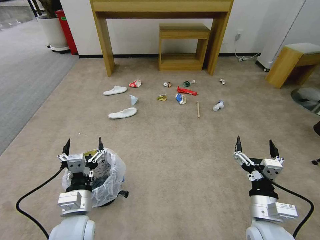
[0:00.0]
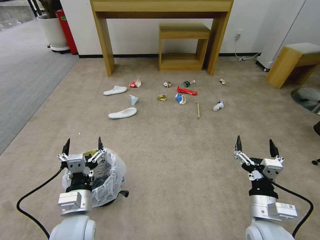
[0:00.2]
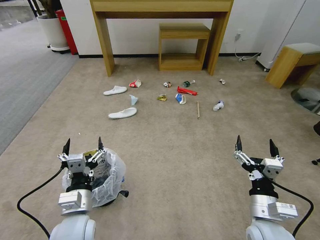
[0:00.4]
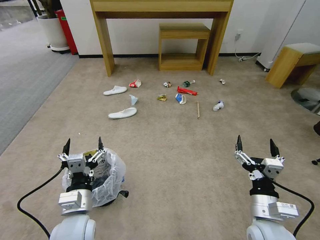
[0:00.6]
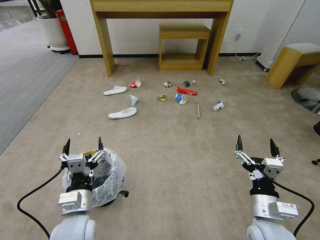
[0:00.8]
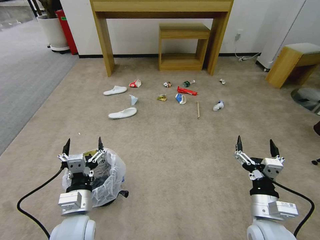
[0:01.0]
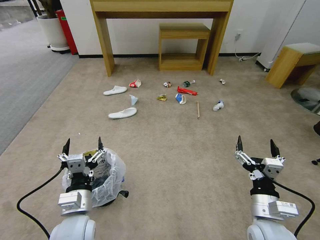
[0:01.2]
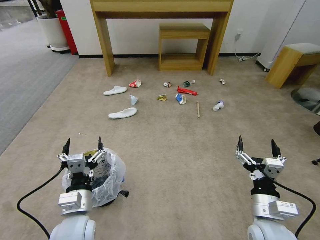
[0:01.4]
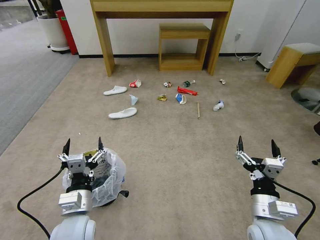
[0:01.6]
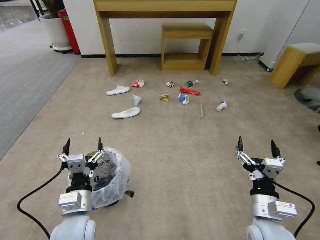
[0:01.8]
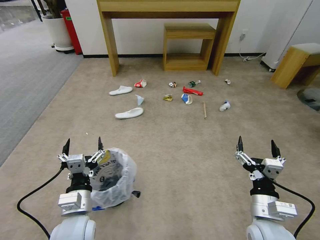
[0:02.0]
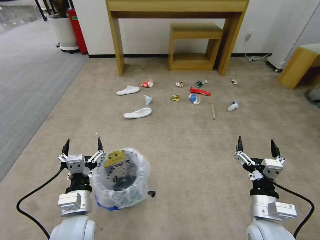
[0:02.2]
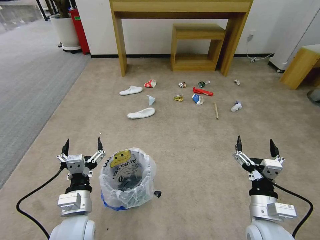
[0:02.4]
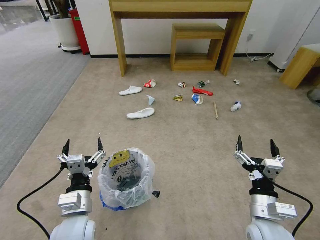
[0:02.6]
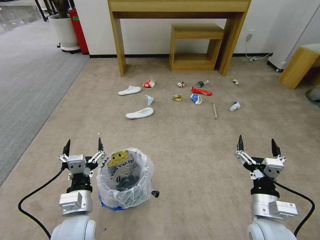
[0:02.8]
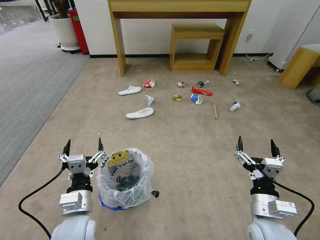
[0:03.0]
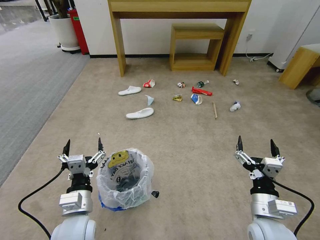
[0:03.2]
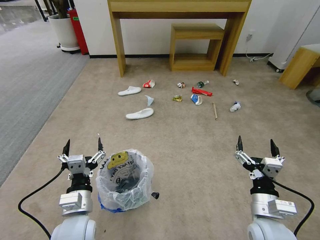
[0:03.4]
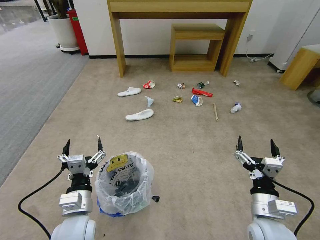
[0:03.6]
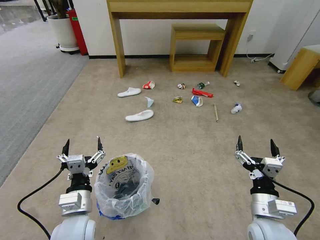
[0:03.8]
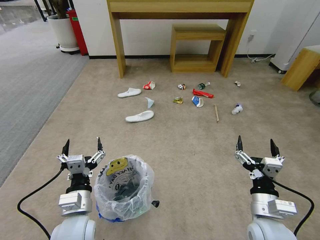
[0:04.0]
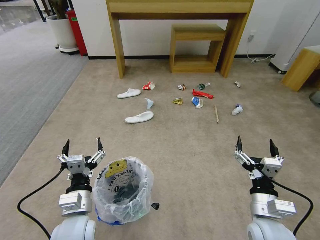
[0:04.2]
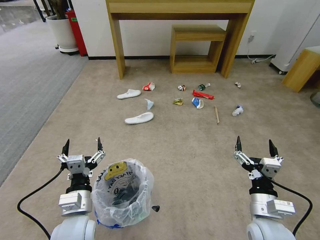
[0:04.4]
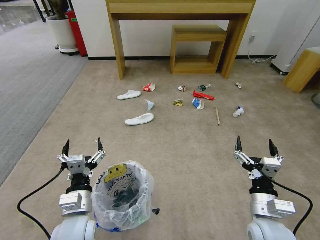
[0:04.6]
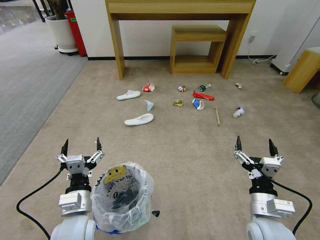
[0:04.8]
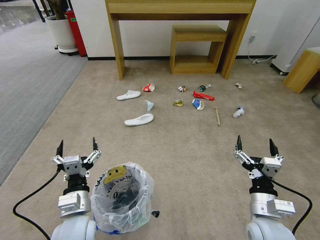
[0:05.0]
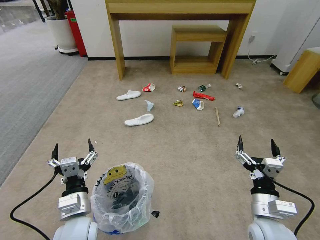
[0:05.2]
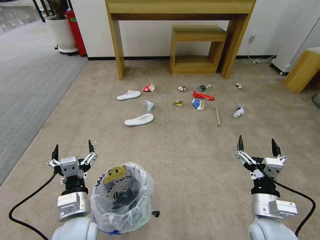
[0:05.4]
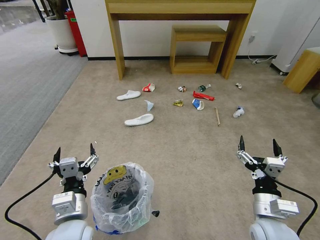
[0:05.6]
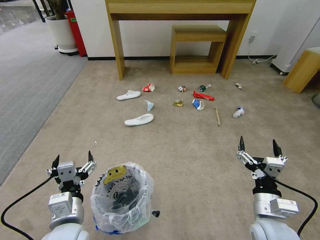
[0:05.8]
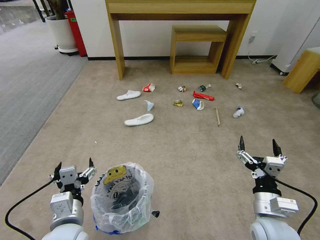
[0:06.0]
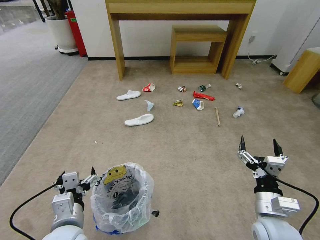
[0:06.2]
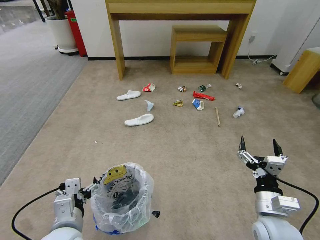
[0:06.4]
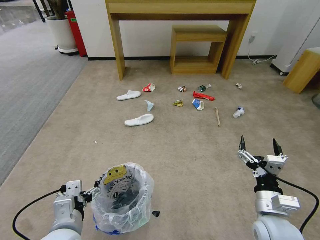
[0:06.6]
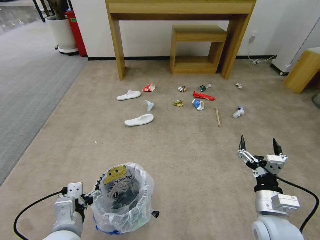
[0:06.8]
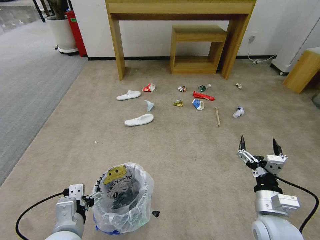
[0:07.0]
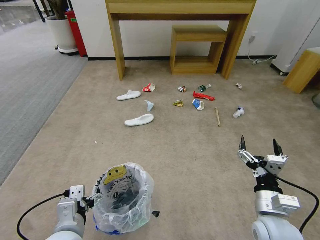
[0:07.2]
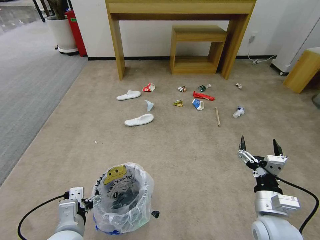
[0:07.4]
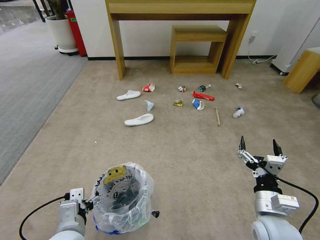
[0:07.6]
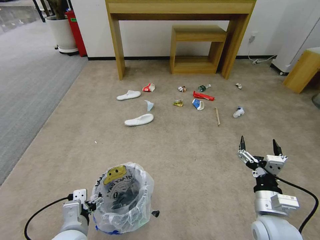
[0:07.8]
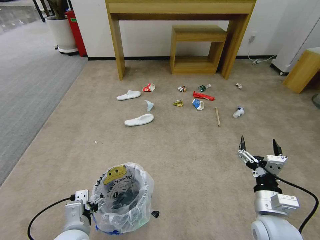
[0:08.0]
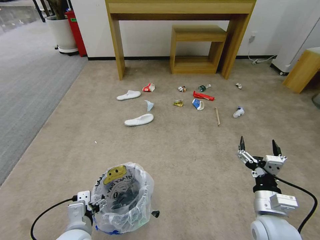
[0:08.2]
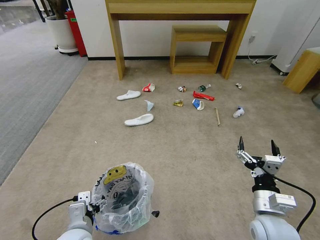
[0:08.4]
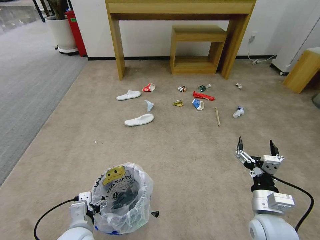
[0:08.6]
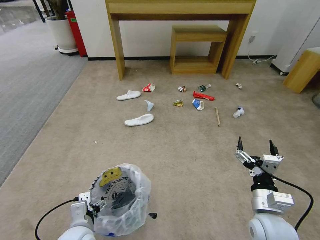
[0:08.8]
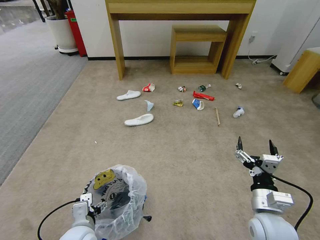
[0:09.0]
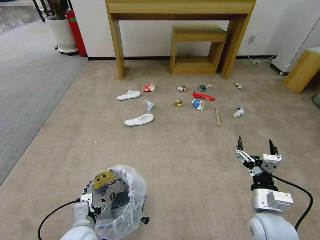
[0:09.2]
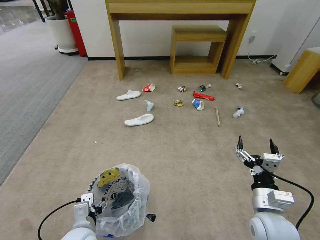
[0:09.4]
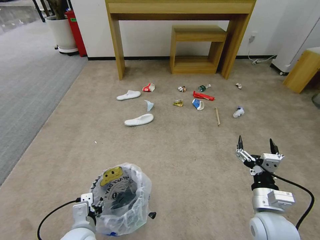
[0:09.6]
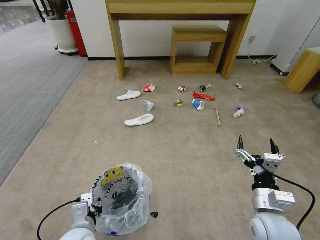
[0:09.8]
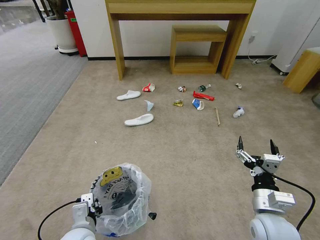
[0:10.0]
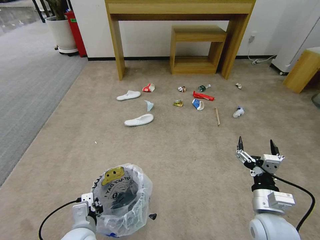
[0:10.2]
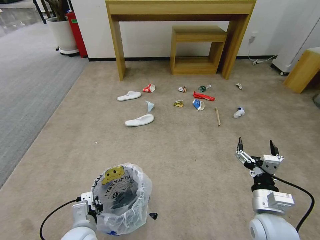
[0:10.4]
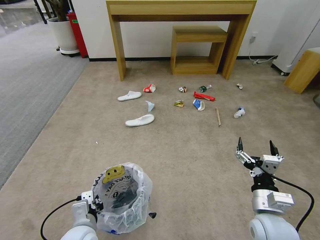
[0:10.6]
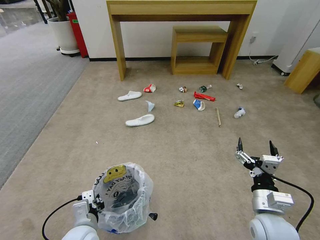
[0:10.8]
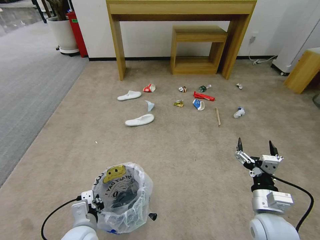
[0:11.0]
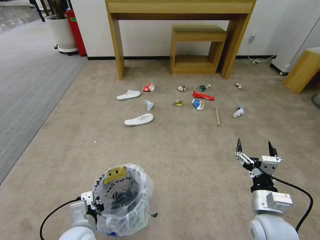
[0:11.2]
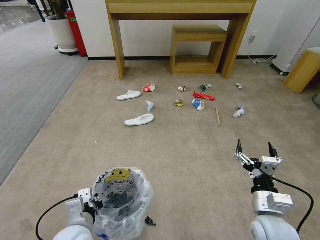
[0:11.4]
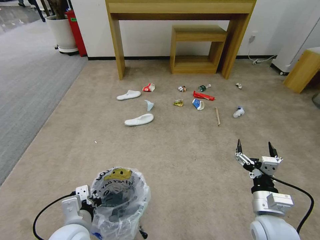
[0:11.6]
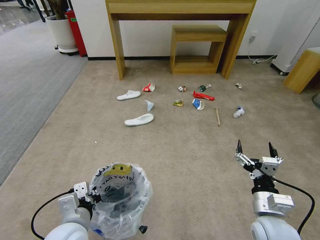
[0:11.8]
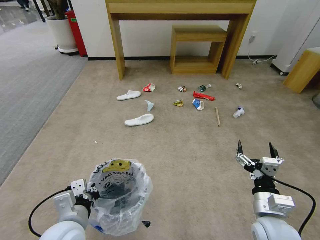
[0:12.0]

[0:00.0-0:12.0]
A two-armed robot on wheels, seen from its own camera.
Task of the whole recording: Pick up the trash bin and place the garbage on the floor into it.
0:01.6 to 0:04.4: Both grippers stay about where they are.
0:07.6 to 0:09.0: The left gripper goes about 5 cm downward.
0:09.0 to 0:10.4: The left gripper closes.
0:10.4 to 0:12.0: The left gripper moves upward, about 10 cm.

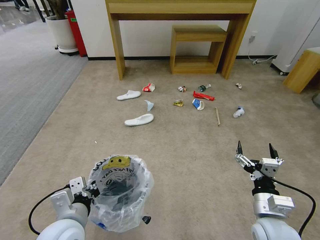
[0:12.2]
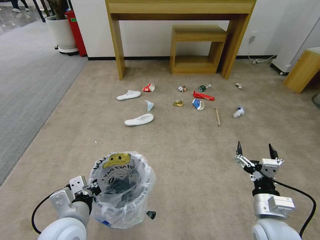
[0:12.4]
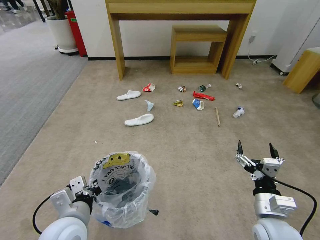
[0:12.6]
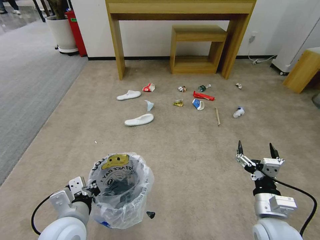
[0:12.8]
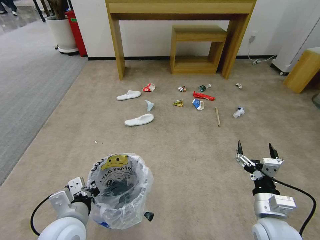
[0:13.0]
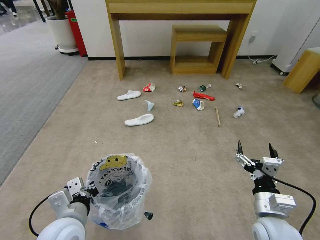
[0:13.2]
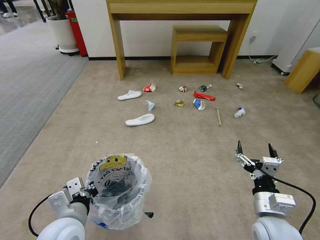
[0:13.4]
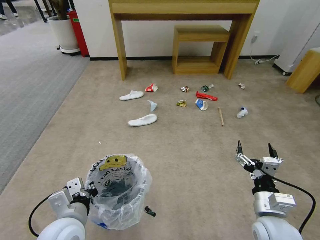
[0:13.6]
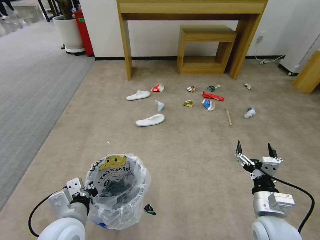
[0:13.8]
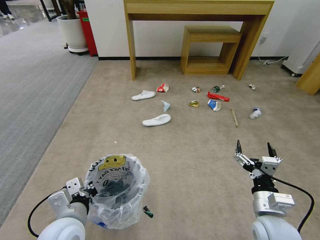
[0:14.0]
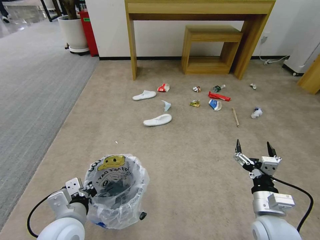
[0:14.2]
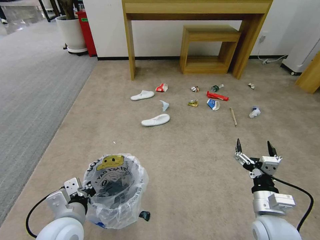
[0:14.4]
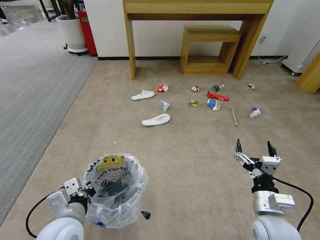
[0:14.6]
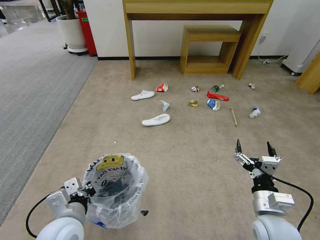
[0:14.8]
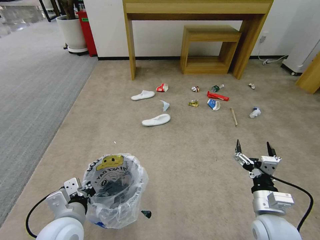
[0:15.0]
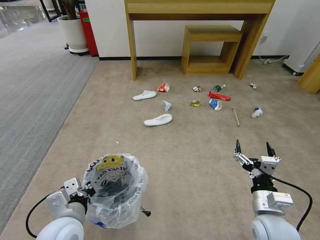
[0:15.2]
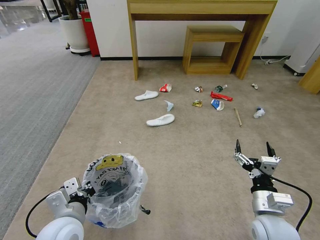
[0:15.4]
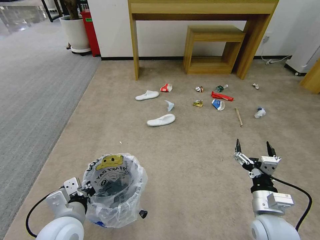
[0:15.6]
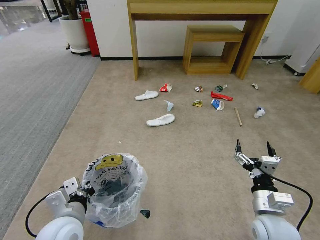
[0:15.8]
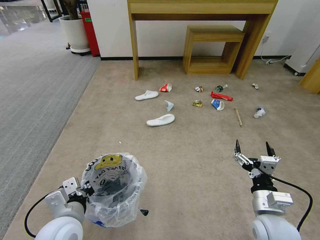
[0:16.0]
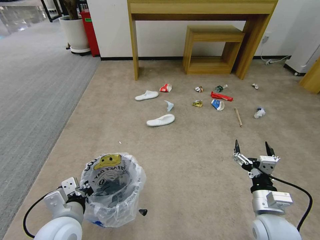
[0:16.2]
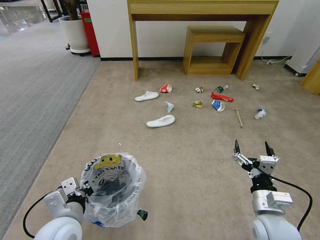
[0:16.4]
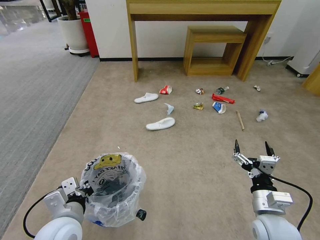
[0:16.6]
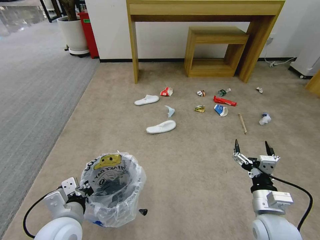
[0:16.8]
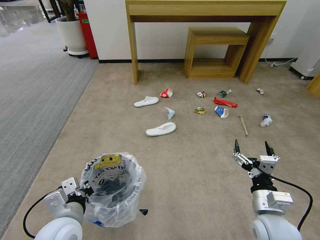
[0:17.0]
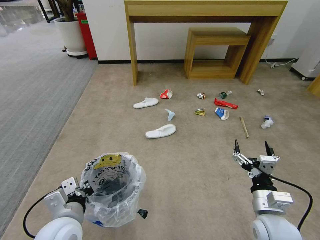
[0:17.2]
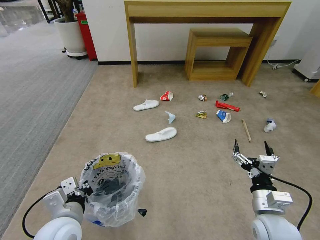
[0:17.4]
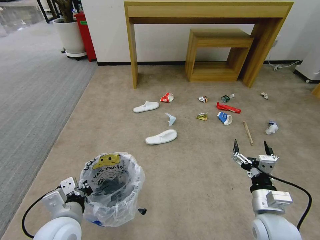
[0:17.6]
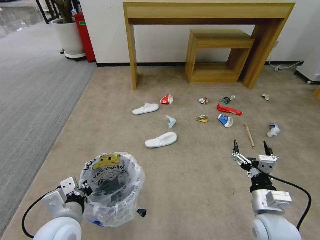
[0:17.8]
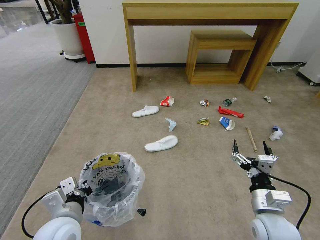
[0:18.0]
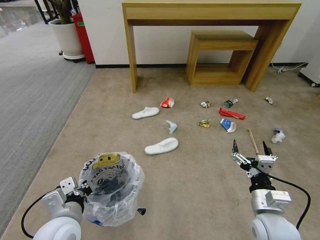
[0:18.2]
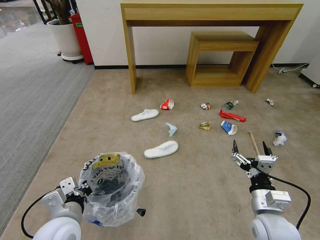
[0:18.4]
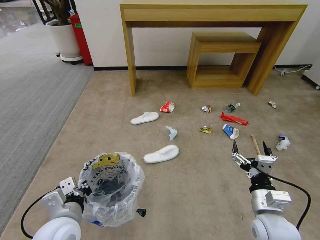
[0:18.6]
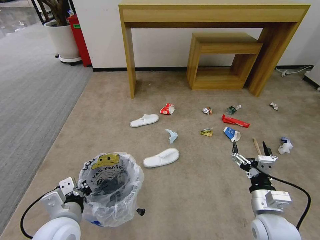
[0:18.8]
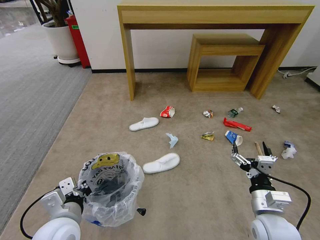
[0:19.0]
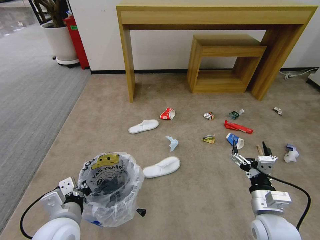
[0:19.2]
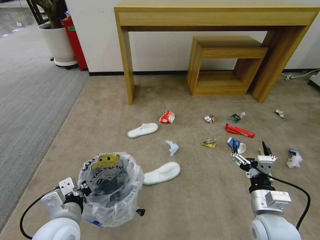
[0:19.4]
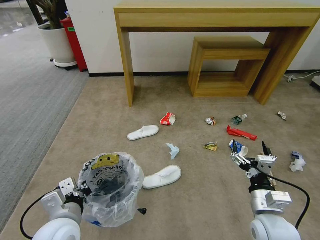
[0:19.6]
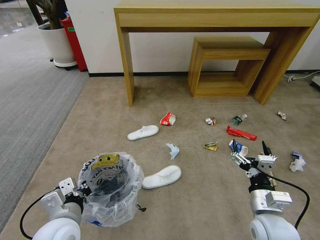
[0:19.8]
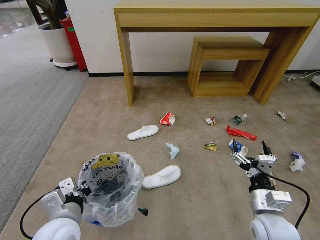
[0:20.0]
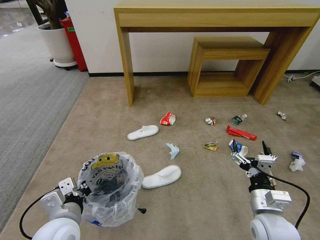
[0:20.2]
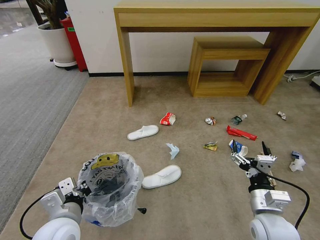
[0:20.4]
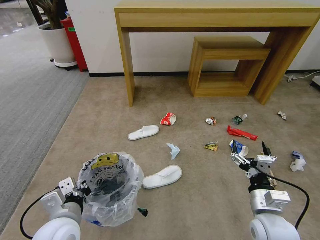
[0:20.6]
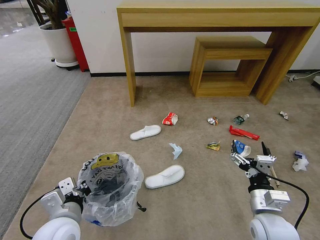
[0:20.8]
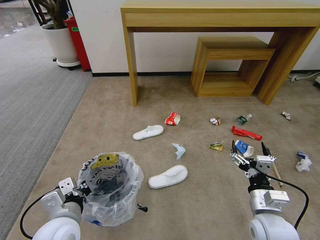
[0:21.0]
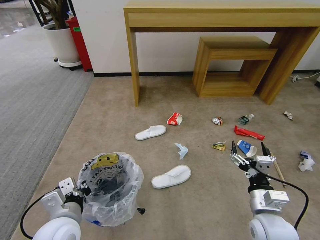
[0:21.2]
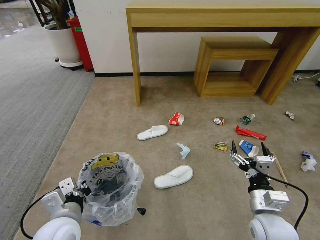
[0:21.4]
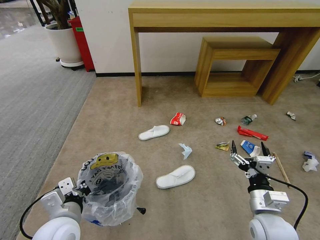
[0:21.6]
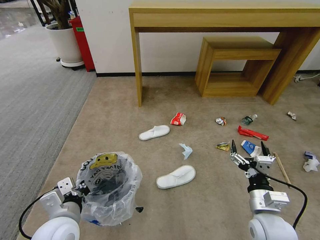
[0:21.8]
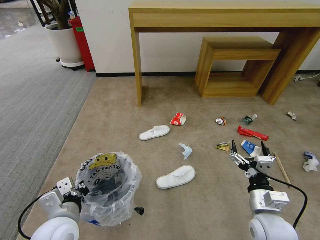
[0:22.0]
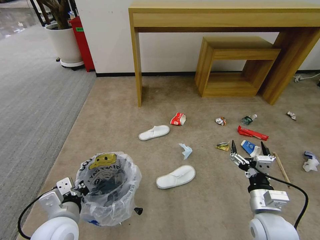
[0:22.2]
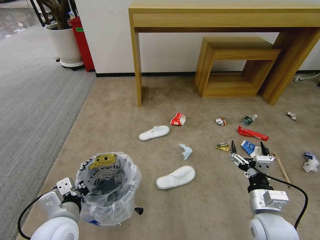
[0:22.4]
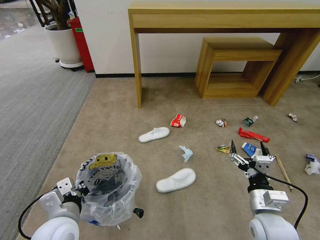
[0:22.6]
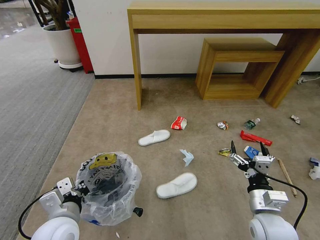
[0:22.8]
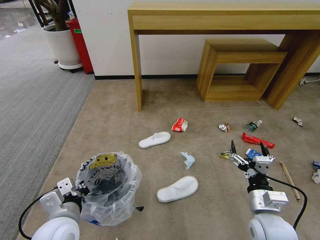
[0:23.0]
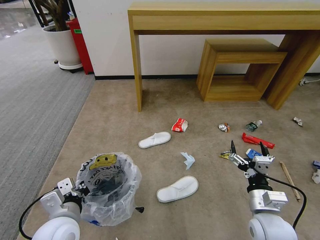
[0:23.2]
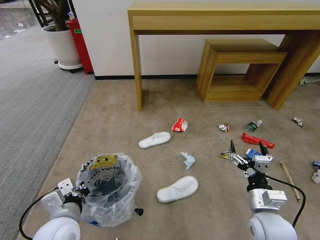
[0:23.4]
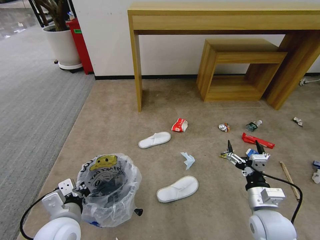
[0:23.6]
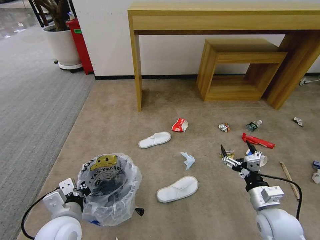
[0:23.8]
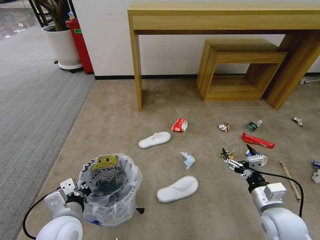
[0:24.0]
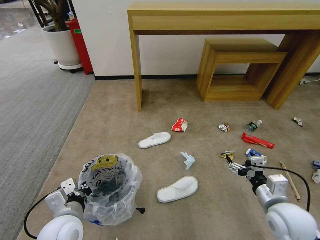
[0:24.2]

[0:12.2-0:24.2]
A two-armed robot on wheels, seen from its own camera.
Task of the whole recording: Pick up the trash bin and place the garbage on the floor into it.
0:12.2 to 0:13.8: The grippers make only small movements.
0:13.8 to 0:16.6: The two grippers keep their place.
0:19.8 to 0:22.6: Both grippers stay about where they are.
0:22.6 to 0:24.2: The right gripper changes place by some 5 cm.
